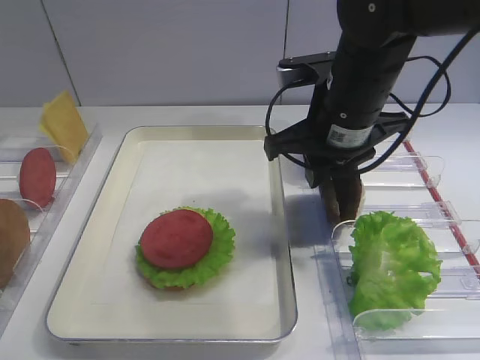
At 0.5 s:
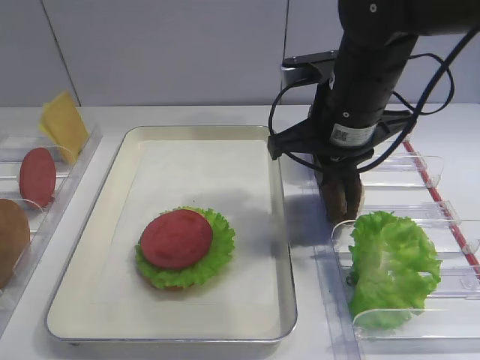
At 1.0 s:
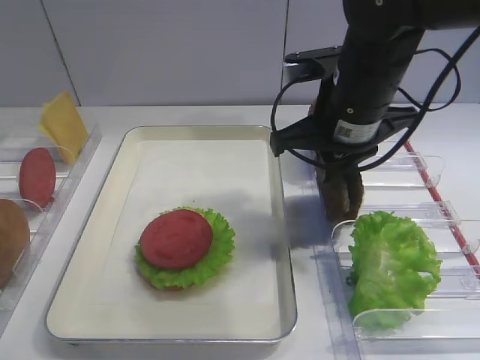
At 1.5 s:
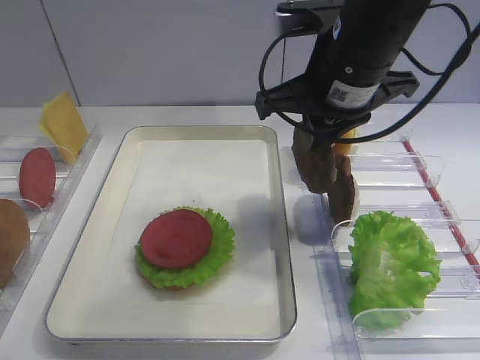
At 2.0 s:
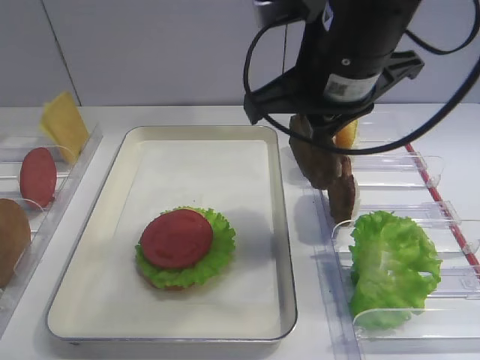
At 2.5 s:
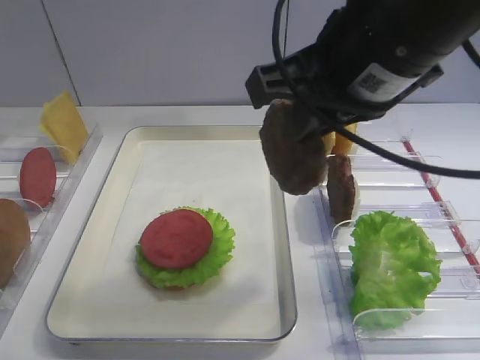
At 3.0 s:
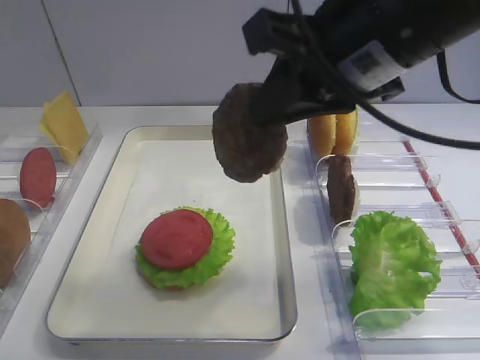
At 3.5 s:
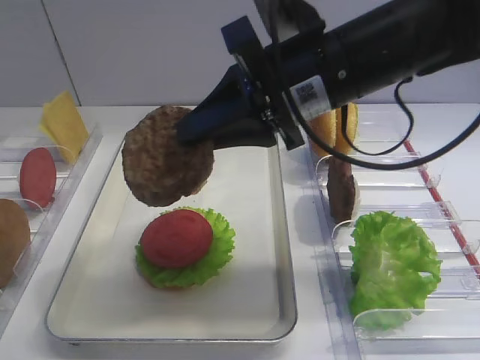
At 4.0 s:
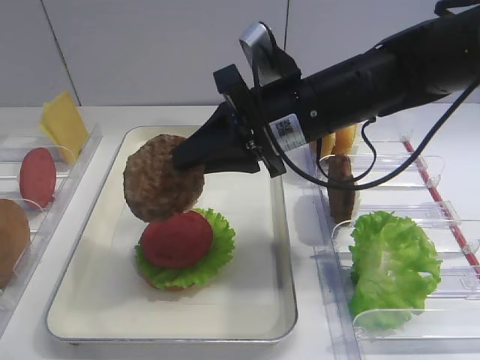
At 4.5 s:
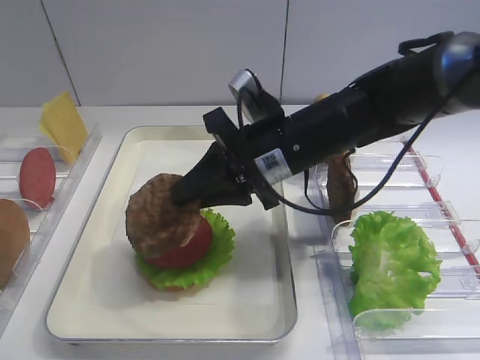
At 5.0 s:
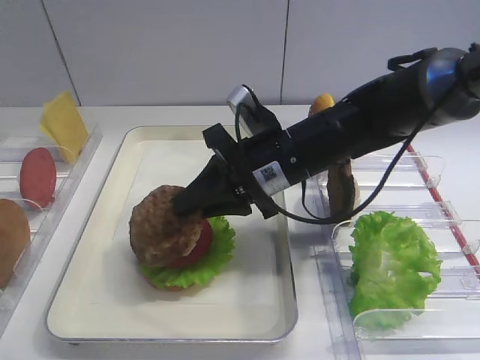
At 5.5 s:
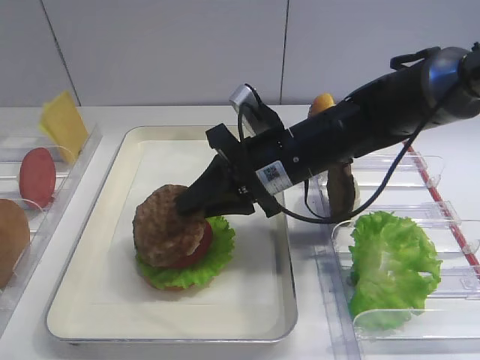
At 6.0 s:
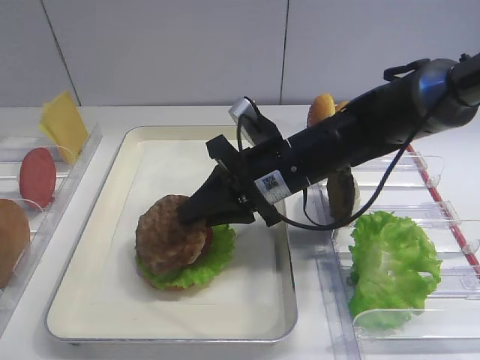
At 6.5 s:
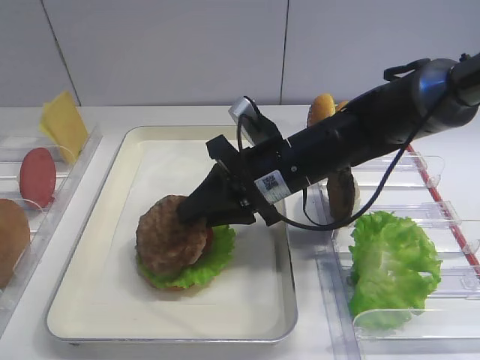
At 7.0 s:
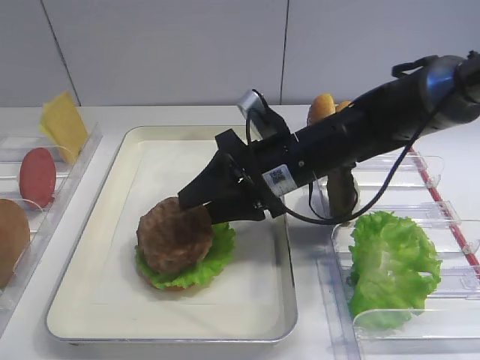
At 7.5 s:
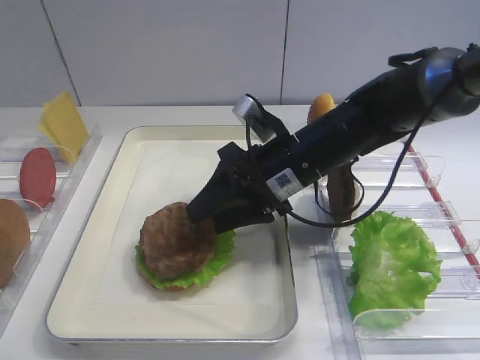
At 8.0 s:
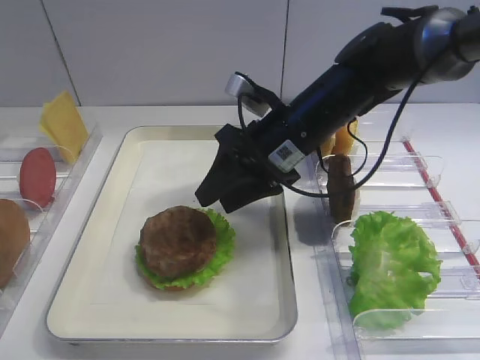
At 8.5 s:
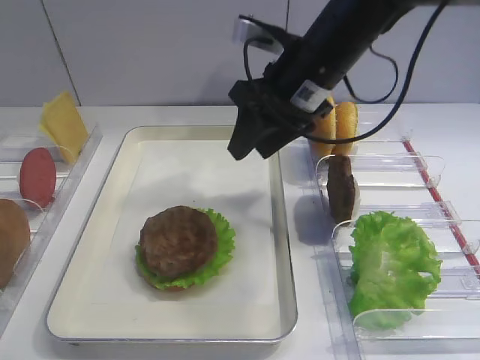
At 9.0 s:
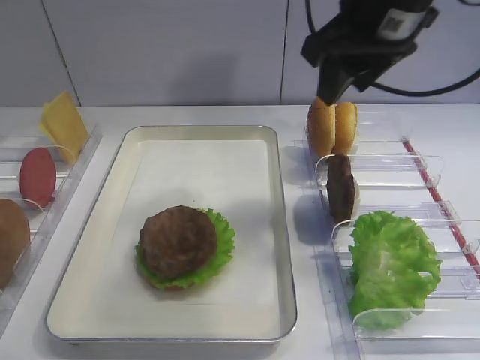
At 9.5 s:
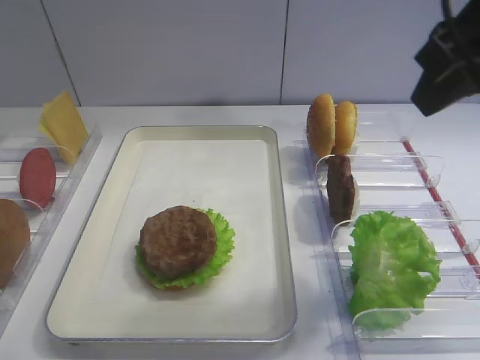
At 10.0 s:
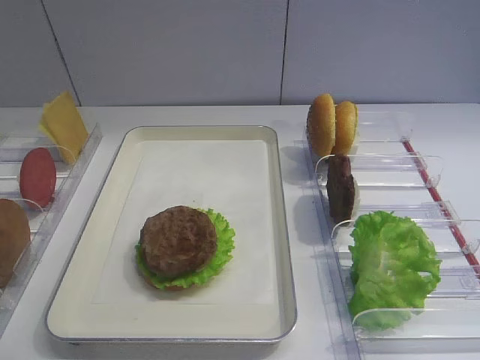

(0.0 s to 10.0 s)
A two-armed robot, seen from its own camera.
Step, 1.5 s - 7.5 s: Place the cutlet on the tomato slice with the right gripper.
0.0 s - 2.0 s: The right gripper goes about 5 cm upward, and closes its fingers.
2.0 s - 4.0 s: The right gripper travels downward by approximately 5 cm.
4.0 s - 6.0 s: The right gripper goes roughly 10 cm downward.
6.0 s - 8.0 s: The right gripper opens.
8.0 s - 10.0 s: The right gripper goes roughly 35 cm backward, upward and to the right.

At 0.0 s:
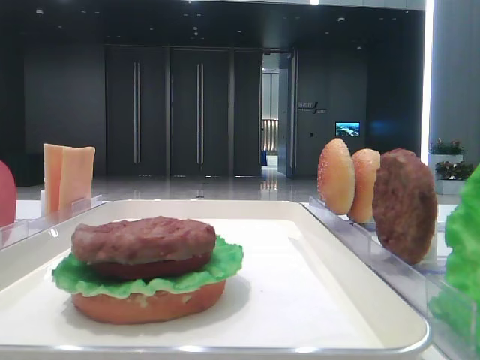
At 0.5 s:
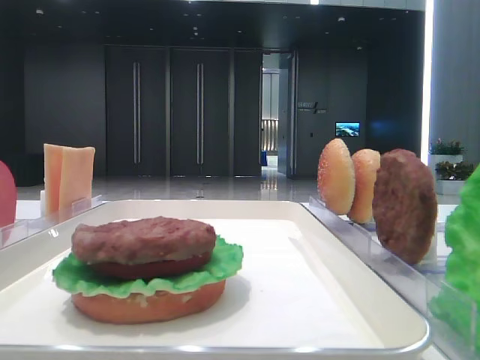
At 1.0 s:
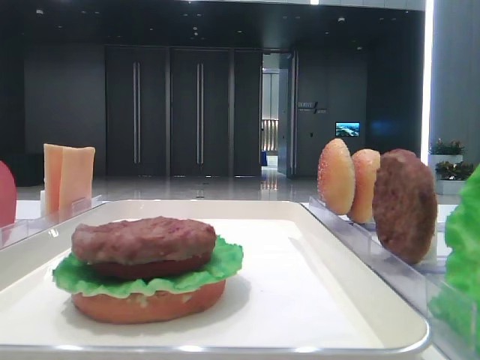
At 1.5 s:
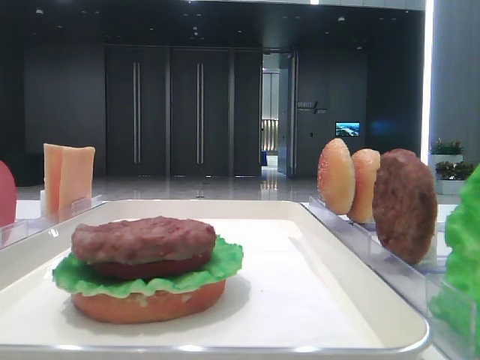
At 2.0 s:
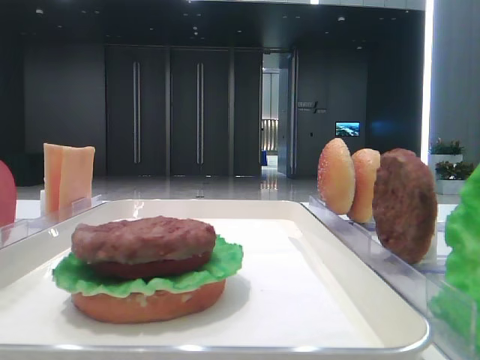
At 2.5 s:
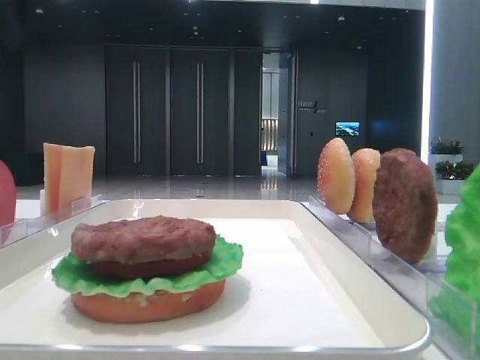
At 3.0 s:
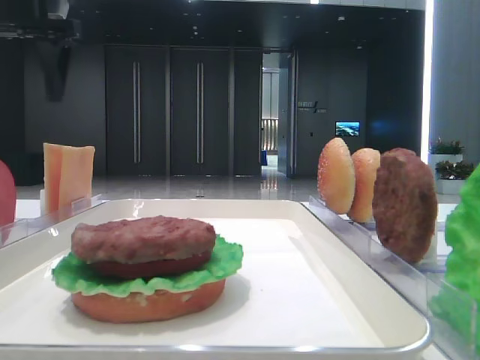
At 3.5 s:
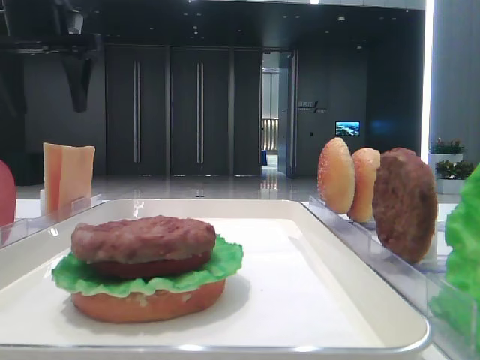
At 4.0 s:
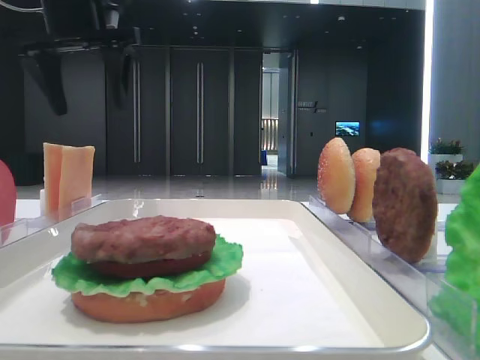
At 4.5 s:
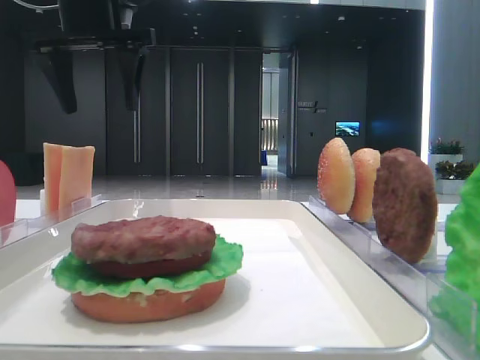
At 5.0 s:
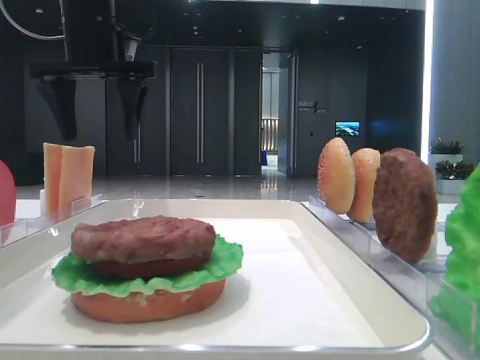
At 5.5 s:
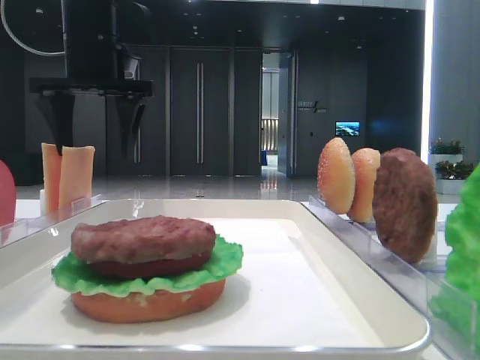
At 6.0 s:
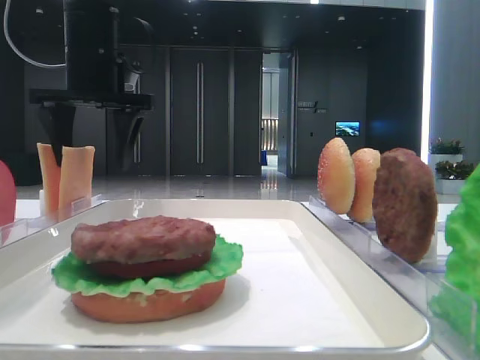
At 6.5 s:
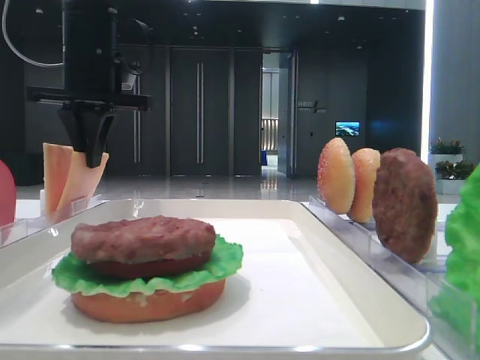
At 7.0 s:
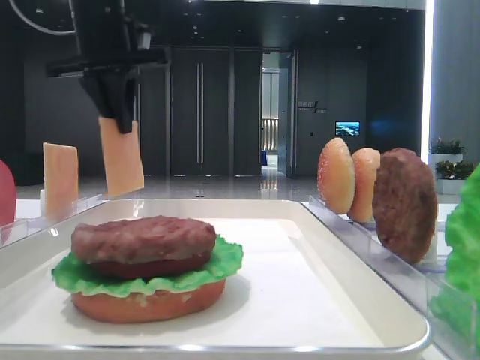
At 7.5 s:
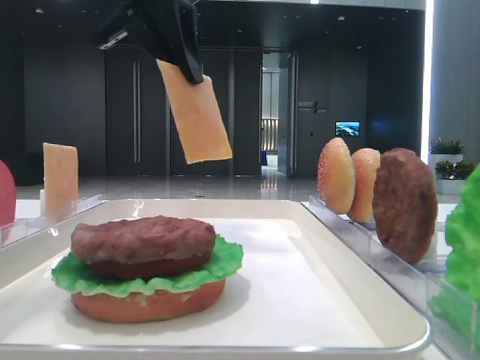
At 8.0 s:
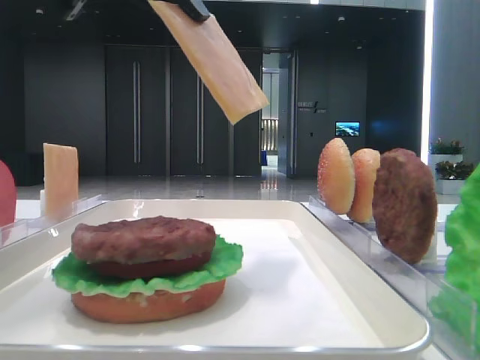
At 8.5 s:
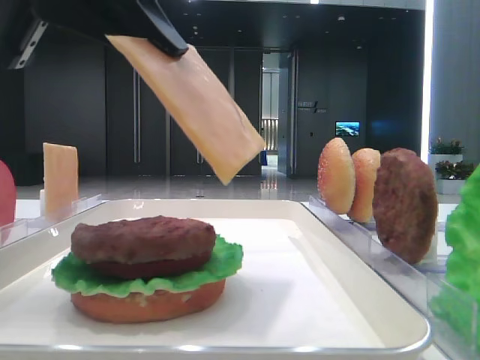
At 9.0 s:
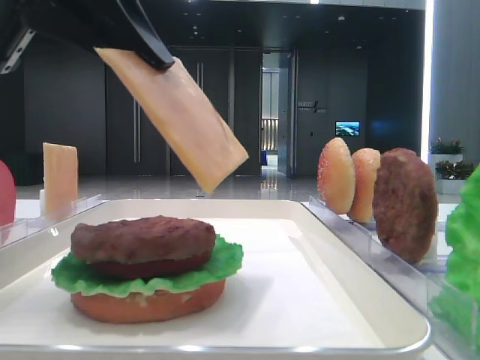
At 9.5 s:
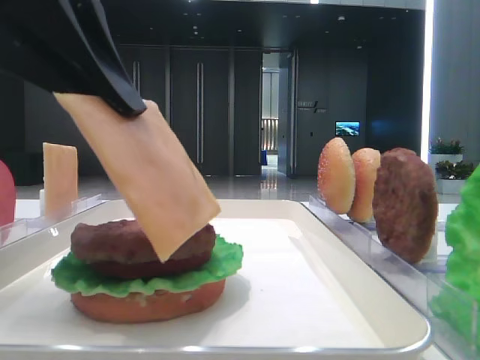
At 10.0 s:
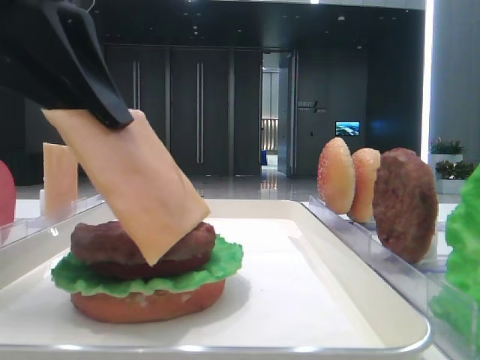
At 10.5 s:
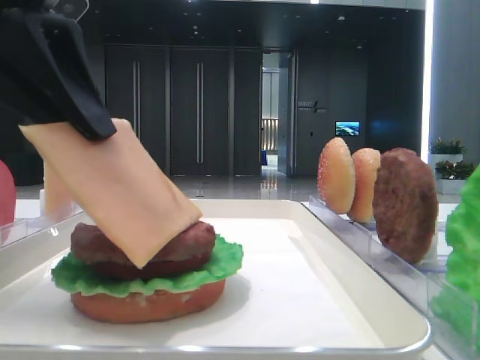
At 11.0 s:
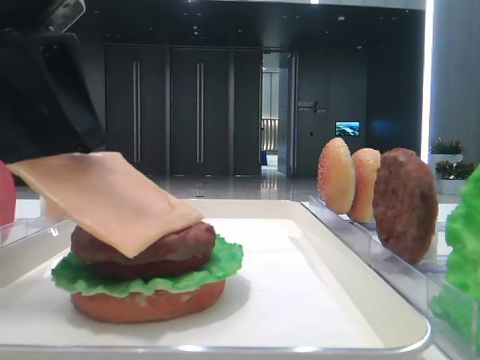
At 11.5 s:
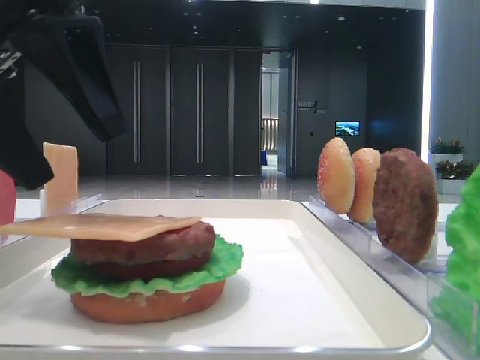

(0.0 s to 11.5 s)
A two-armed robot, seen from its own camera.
Step, 0.0 s - 6.5 s: Pick up the cheese slice with the left hand.
Step, 7.0 s - 11.5 s: Place the cheese slice on the patty with the left hand.
2.0 s - 4.0 s: The left gripper shifts roughly 25 cm forward and to the right.
4.0 s - 6.0 s: The left gripper goes roughly 5 cm downward.
6.0 s - 7.5 s: The left gripper moves backward, to the right and upward, roughly 15 cm, and closes its fingers.
7.5 s - 9.5 s: The left gripper heads backward and downward, covering some 15 cm.
9.5 s - 11.5 s: The left gripper opens up.

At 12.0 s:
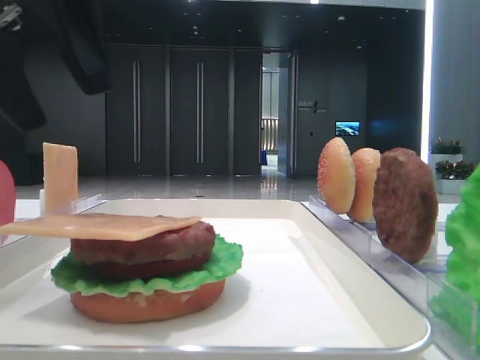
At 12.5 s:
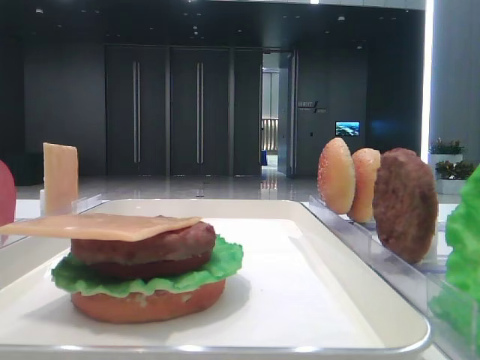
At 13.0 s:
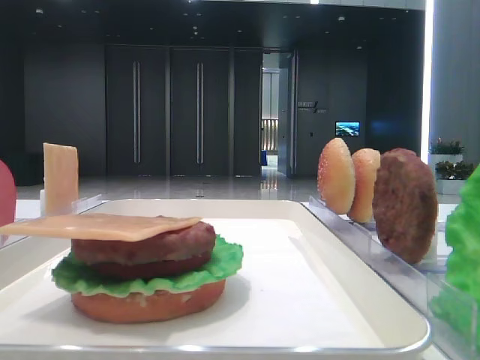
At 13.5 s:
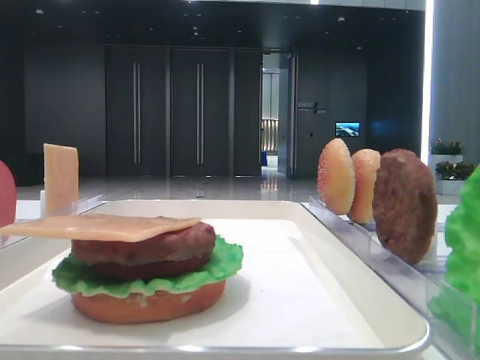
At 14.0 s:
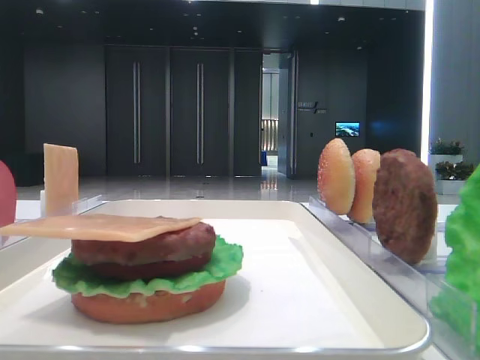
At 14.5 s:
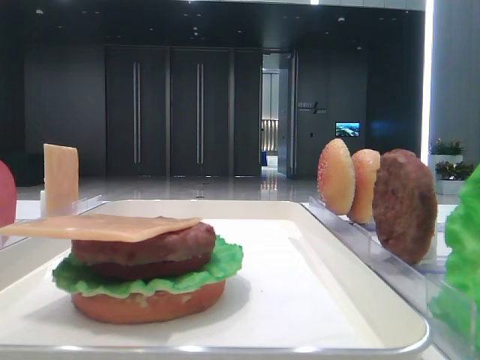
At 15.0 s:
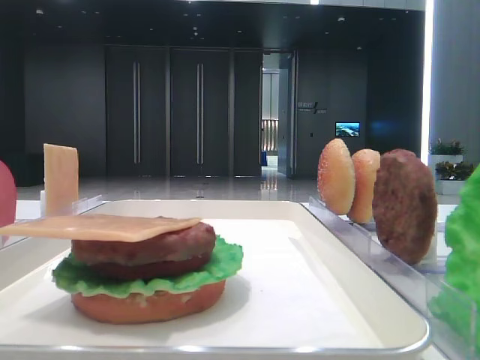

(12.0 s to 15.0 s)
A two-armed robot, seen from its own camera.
12.0 s - 13.5 s: The left gripper is displaced backward and to the left by roughly 20 cm.
